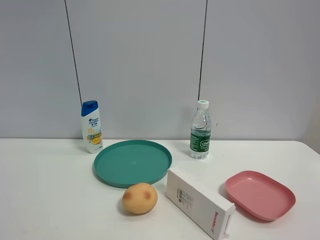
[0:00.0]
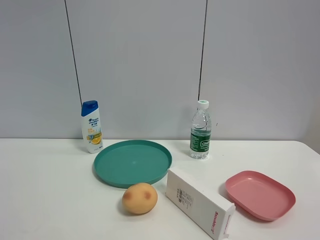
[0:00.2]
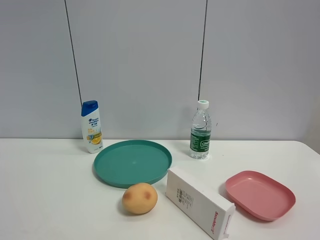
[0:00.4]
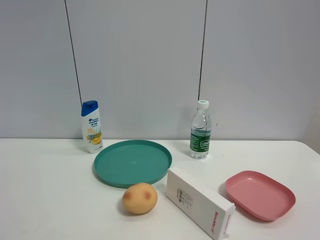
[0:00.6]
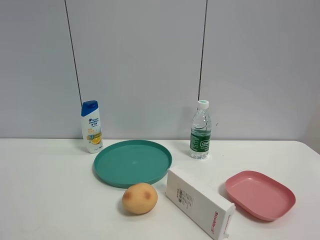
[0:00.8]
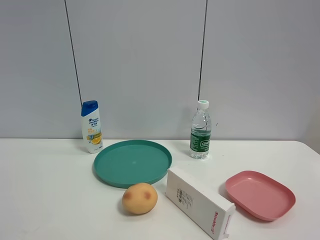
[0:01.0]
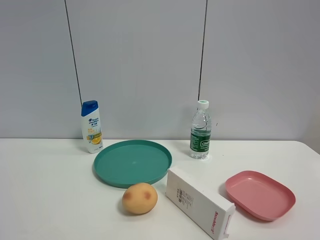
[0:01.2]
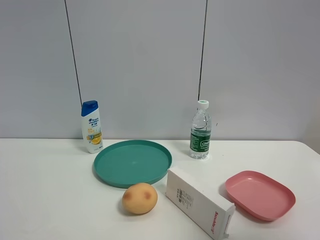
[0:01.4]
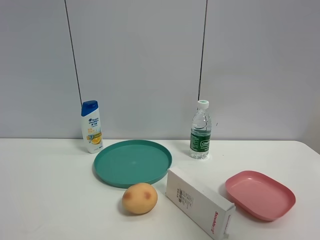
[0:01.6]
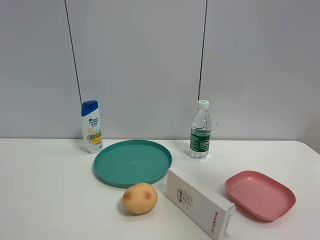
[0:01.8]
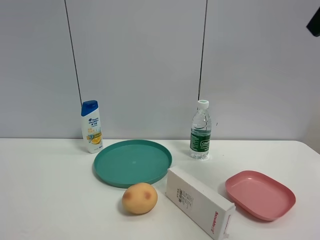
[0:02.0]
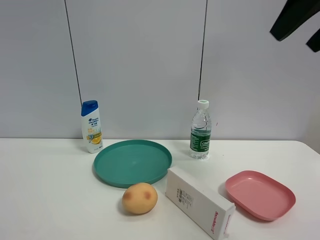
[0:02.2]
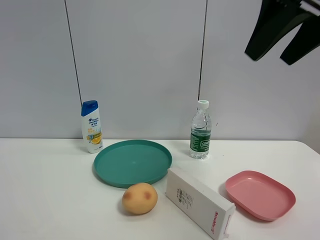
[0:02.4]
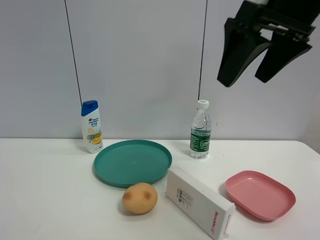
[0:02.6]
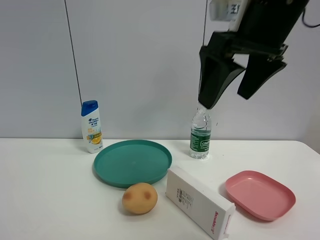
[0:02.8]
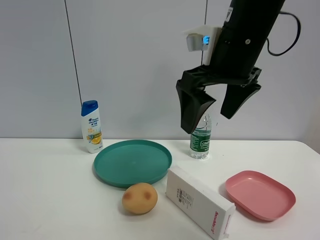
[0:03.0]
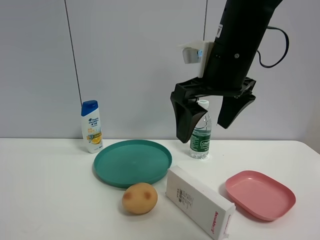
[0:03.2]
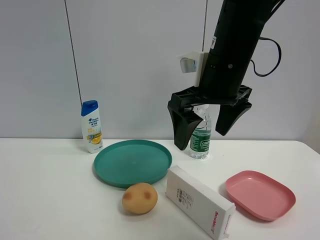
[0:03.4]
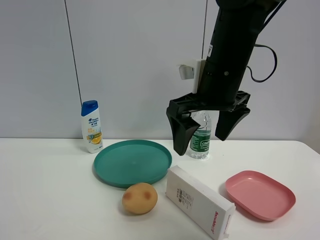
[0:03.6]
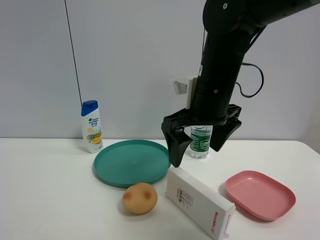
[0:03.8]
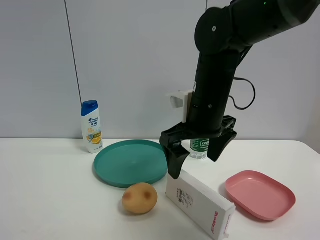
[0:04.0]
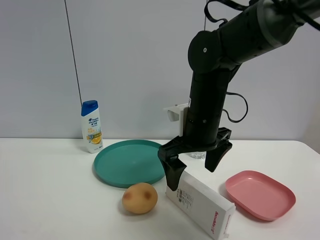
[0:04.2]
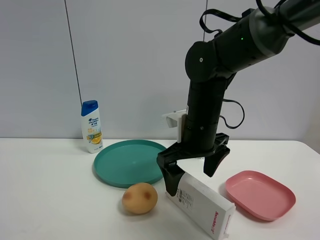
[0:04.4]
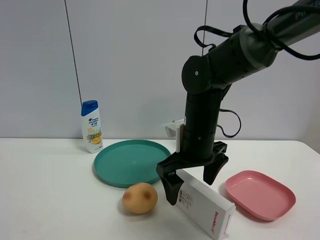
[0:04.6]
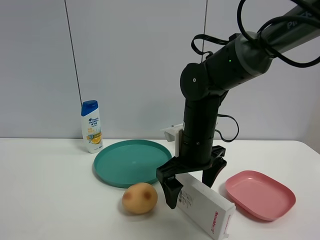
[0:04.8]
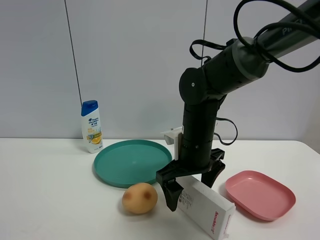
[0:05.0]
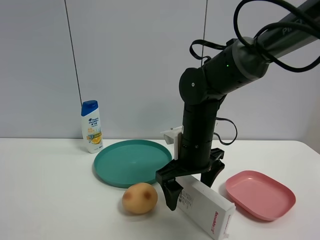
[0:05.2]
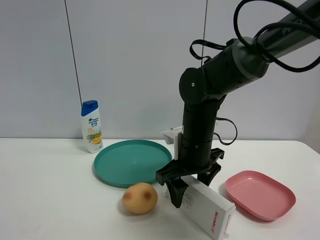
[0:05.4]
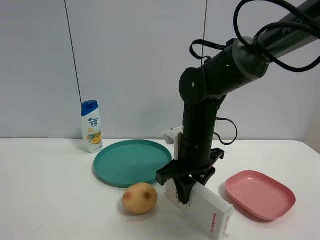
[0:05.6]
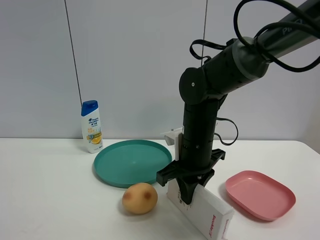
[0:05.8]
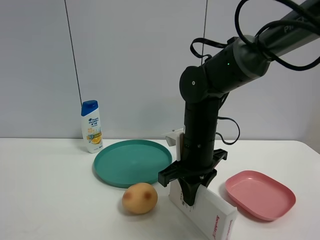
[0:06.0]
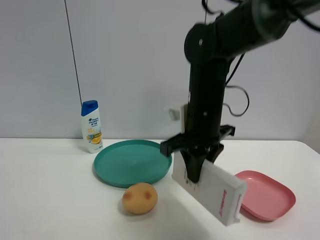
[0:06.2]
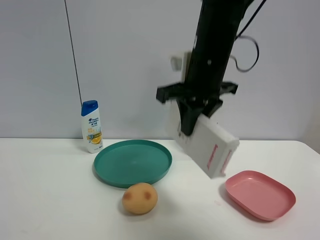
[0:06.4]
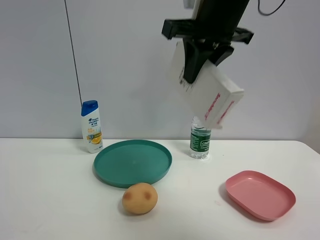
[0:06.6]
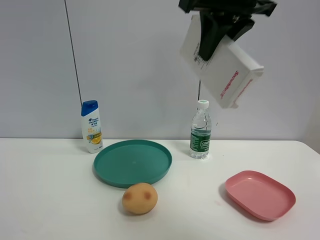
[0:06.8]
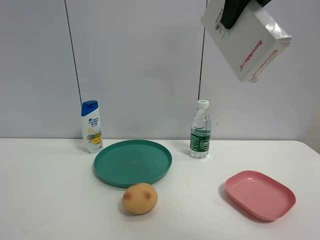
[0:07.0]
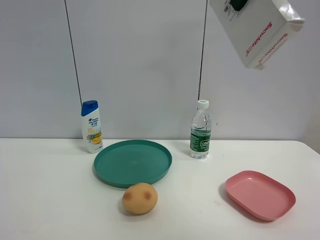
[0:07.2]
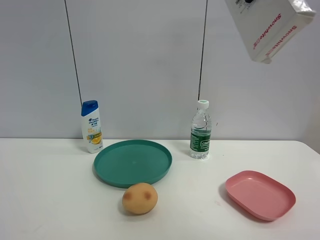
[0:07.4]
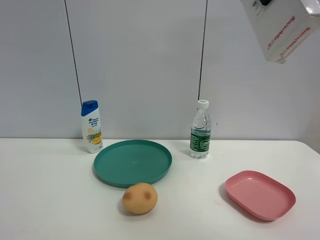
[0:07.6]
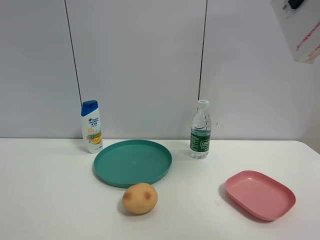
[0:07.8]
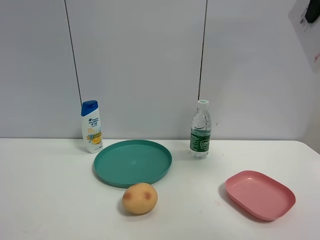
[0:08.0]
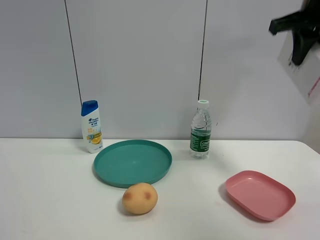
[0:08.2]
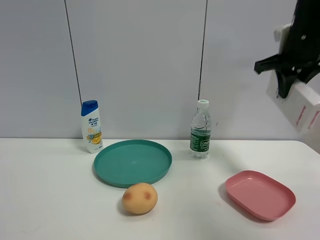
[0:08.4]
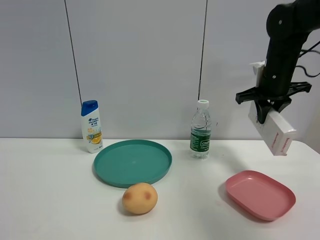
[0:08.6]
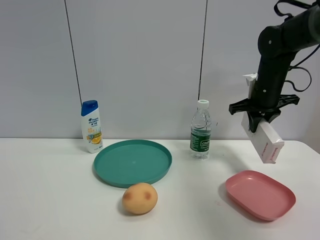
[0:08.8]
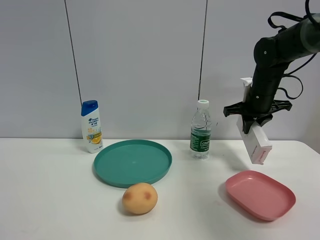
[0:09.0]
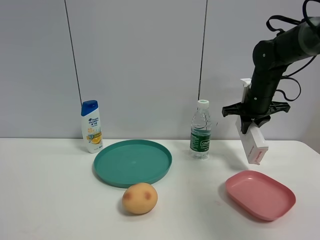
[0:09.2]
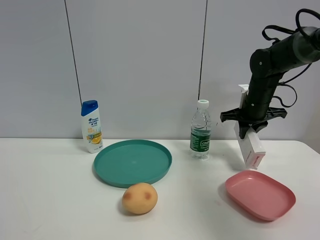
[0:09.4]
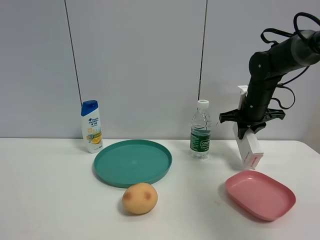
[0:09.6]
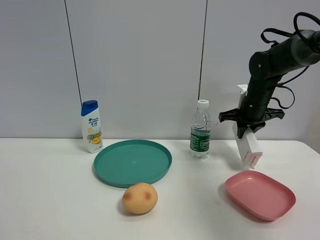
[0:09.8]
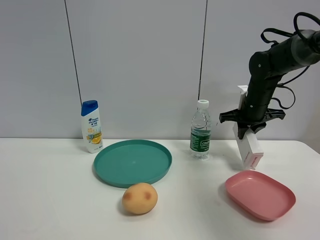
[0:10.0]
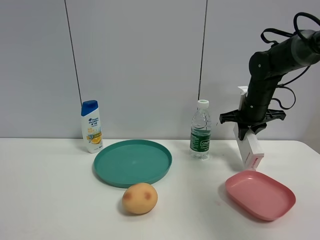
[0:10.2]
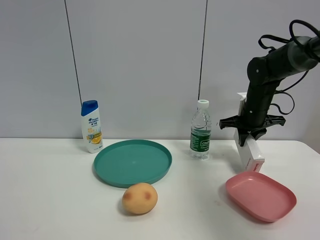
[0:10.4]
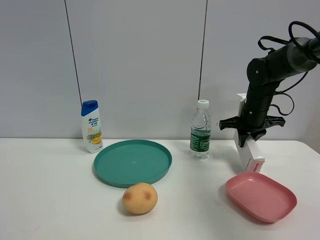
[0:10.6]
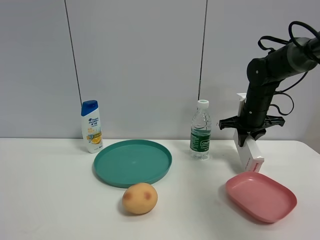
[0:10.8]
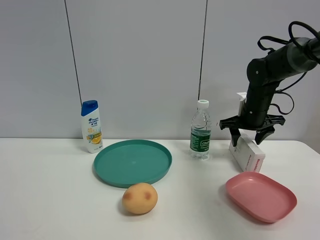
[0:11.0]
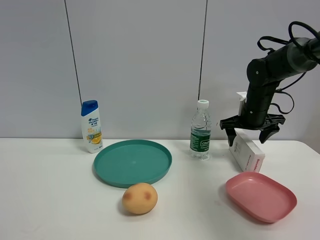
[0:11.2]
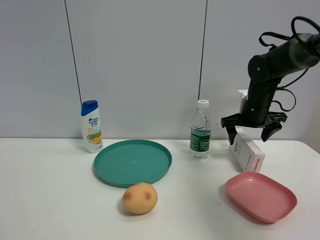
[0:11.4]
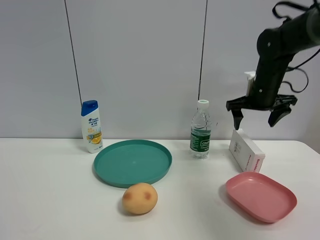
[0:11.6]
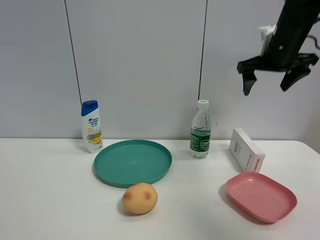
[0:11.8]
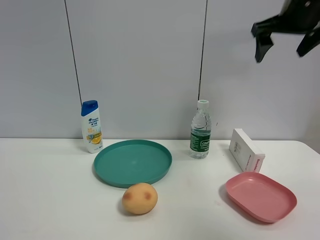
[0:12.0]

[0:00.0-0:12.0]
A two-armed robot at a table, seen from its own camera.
Task of the whole recording: the gripper move the object.
Step, 0:00.0 to 0:05.8: Grasp the USB box with the right gripper.
Step, 0:06.0 to 0:11.0: Place the USB box on the table with the right gripper.
0:00.0 to 0:01.6: The right gripper heads upward and forward, covering approximately 15 cm.
0:01.6 to 0:03.0: The right gripper travels to the left, forward and downward by roughly 30 cm.
0:03.0 to 0:04.4: The right gripper heads downward, covering about 15 cm.
0:04.4 to 0:06.0: The right gripper closes its fingers.
0:06.0 to 0:07.6: The right gripper travels upward by roughly 30 cm.
0:07.6 to 0:09.0: The right gripper goes roughly 35 cm downward and forward.
0:09.0 to 0:10.4: There are only small adjustments of the grippers.
0:10.4 to 0:12.0: The right gripper moves upward, some 20 cm, and opens.

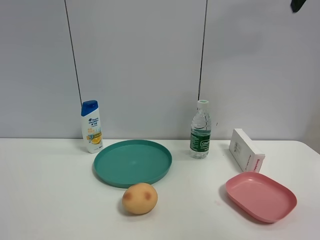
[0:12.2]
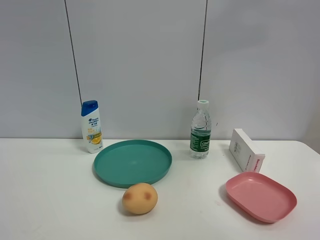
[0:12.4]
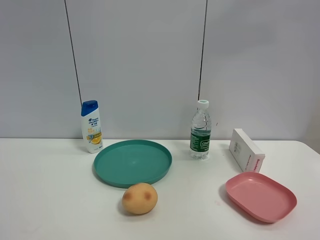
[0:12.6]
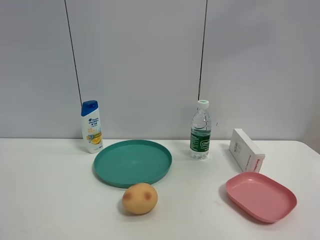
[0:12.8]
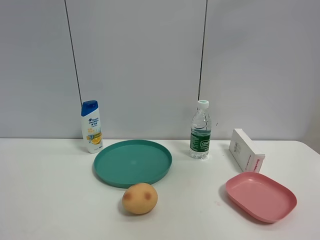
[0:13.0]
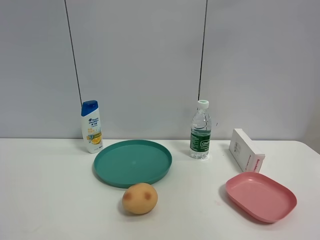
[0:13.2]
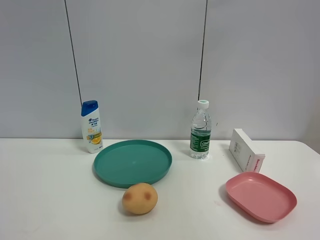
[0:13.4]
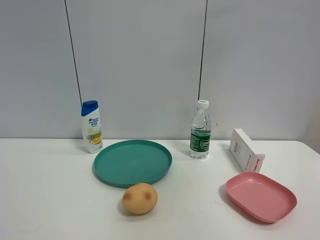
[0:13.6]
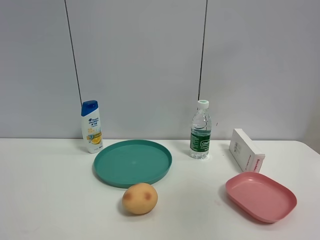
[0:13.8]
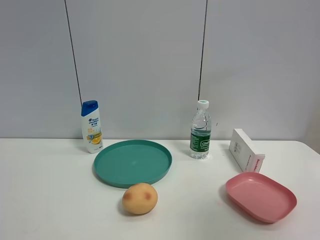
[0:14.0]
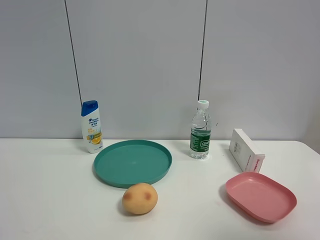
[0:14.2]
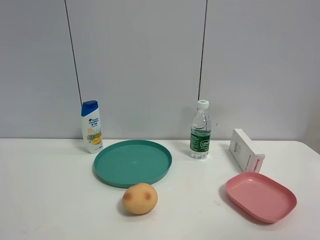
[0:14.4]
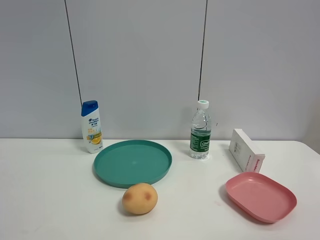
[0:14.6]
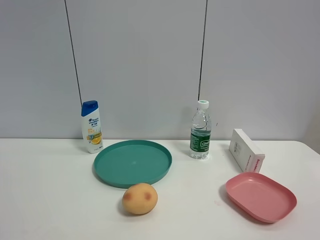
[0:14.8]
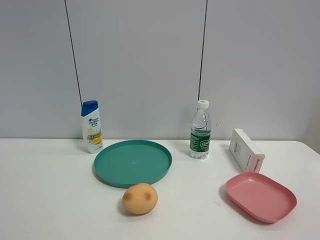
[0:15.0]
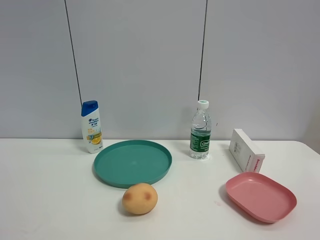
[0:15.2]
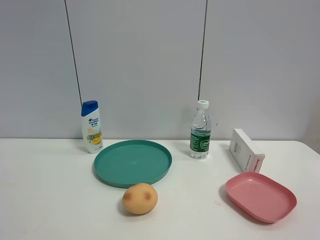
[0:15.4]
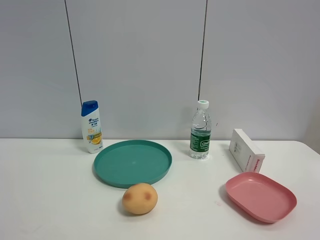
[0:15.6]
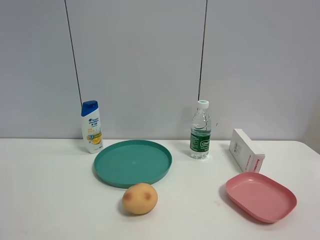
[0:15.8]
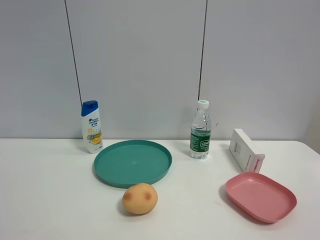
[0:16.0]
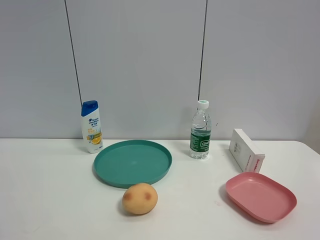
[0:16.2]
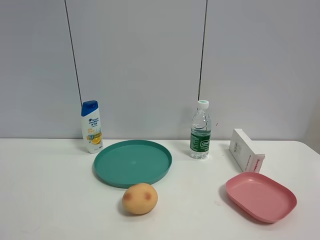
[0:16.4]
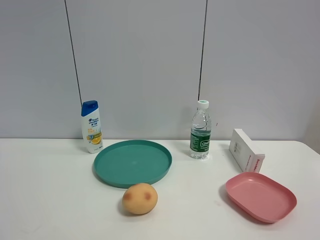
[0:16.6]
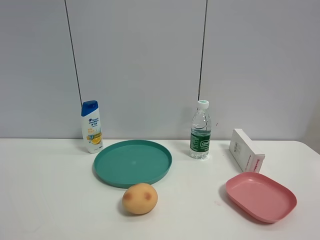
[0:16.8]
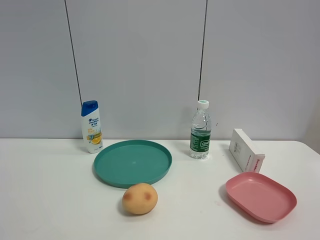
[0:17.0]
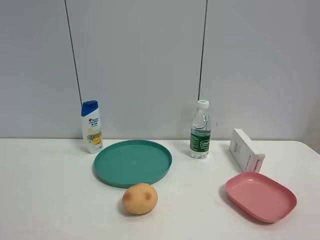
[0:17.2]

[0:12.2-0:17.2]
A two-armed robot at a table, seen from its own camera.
Task of the whole recording: the gripper move the object.
0:12.2 to 0:13.8: The right gripper is displaced backward by approximately 20 cm.
0:13.8 to 0:15.6: The right gripper heads downward and backward, covering about 20 cm.
0:15.6 to 0:17.2: The two grippers keep their place.

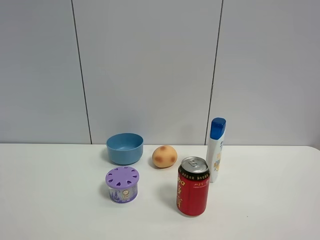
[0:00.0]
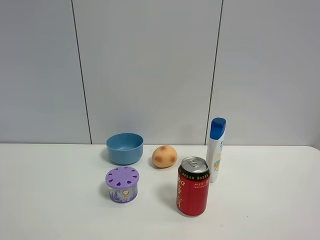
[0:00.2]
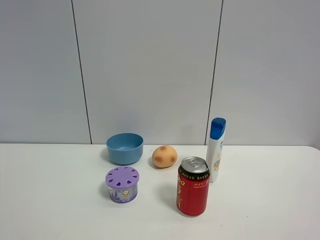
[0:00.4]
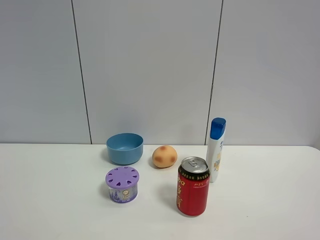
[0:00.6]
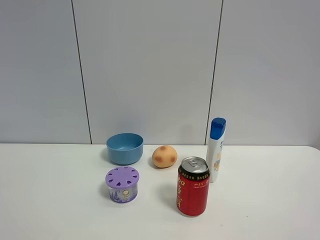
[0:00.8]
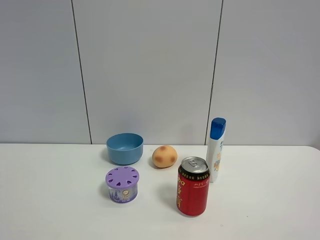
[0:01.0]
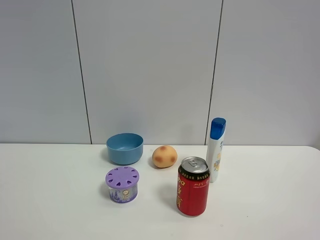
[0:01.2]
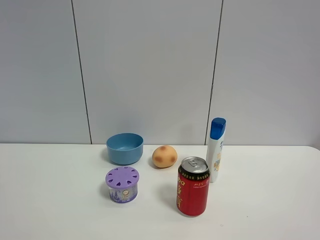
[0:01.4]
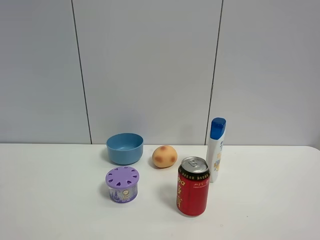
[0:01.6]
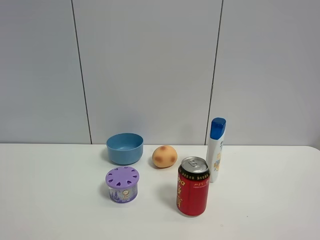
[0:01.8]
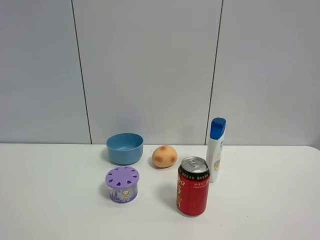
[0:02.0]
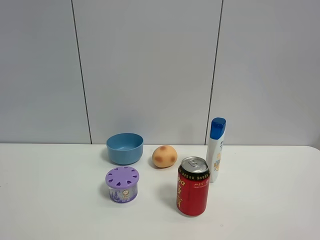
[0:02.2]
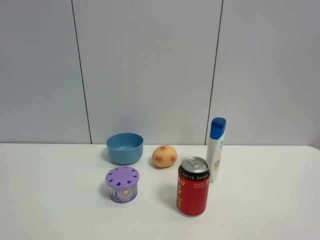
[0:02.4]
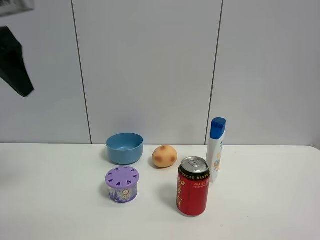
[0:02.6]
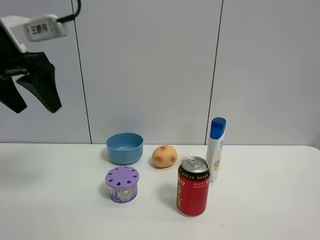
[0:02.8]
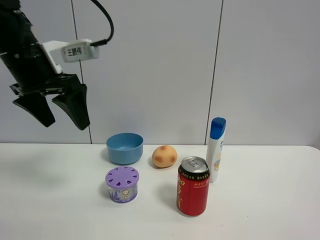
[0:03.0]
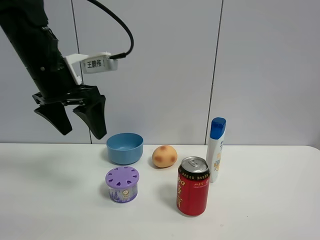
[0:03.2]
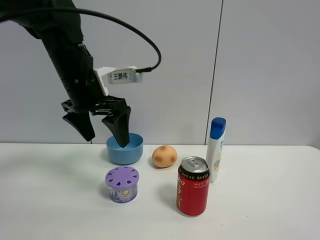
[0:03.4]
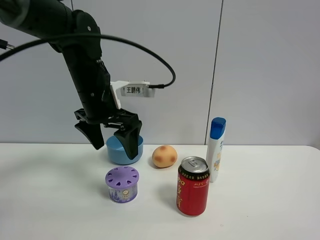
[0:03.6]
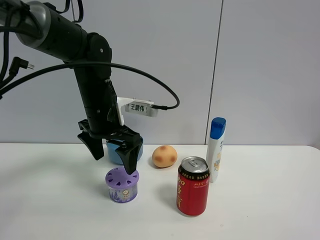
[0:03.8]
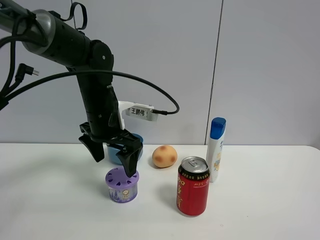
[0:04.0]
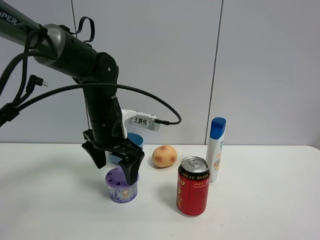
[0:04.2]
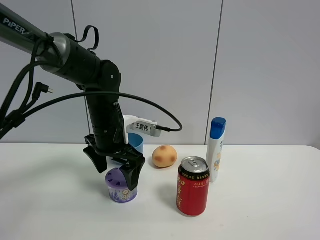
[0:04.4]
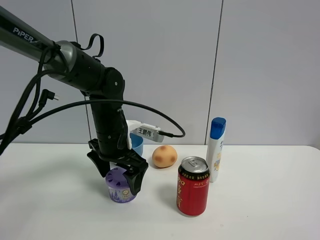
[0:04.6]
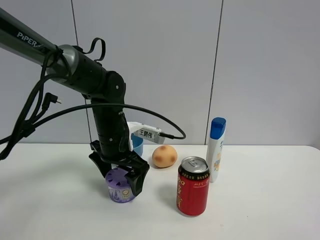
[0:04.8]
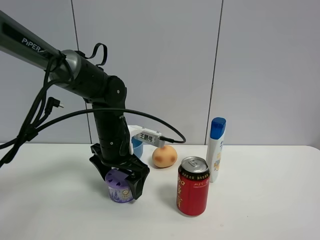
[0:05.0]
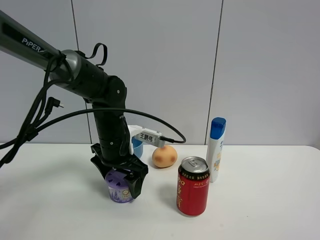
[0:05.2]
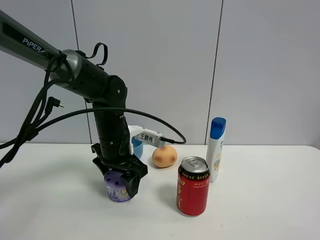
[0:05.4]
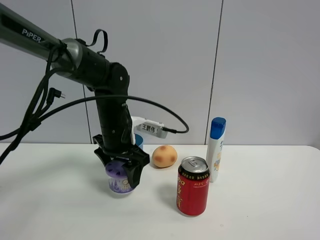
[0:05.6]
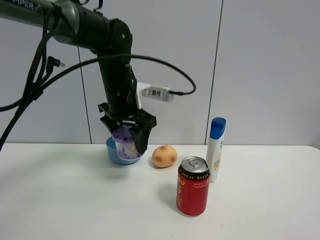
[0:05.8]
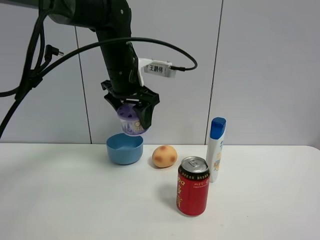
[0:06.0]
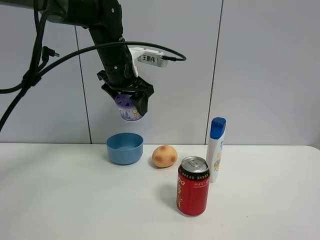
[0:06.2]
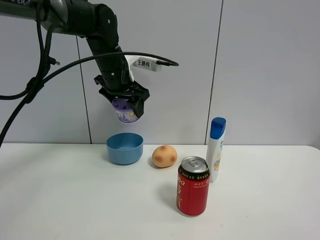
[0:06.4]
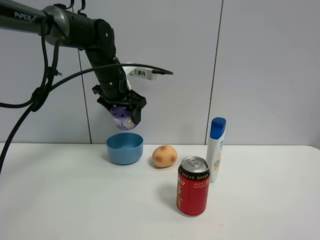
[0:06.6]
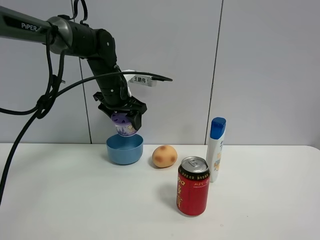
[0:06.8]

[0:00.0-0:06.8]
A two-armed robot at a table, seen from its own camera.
Task of the whole recording: the gripper move the object.
Step, 0:00.0 to 0:05.2: Grasp the blue bowl with the left gripper.
0:01.4 to 0:02.8: The left gripper heads forward, covering roughly 30 cm.
0:02.8 to 0:04.0: The left gripper shifts approximately 20 cm downward, to the right and forward, and opens up.
0:04.0 to 0:05.4: The left gripper is displaced downward by approximately 5 cm, and closes its fingers.
0:05.4 to 0:06.8: The left gripper shifts roughly 15 cm forward and upward.
